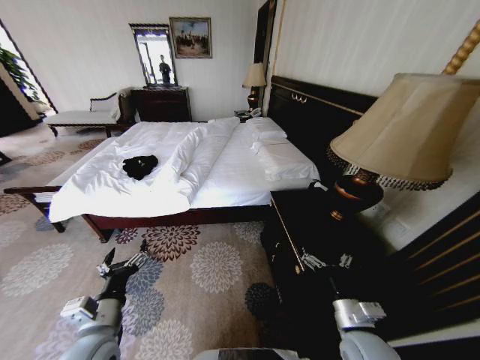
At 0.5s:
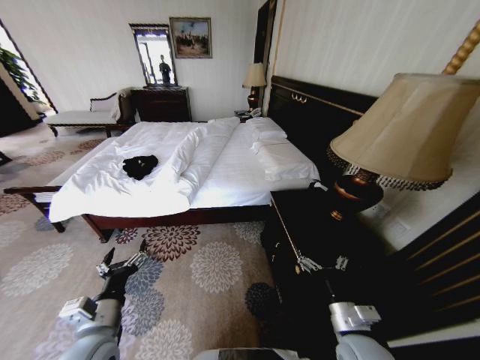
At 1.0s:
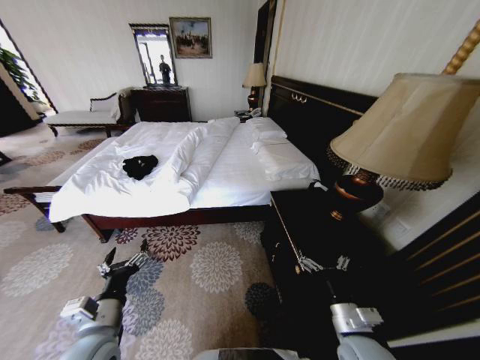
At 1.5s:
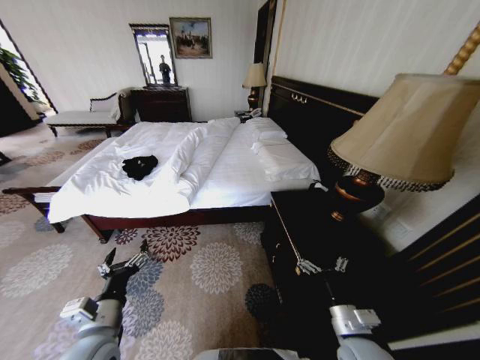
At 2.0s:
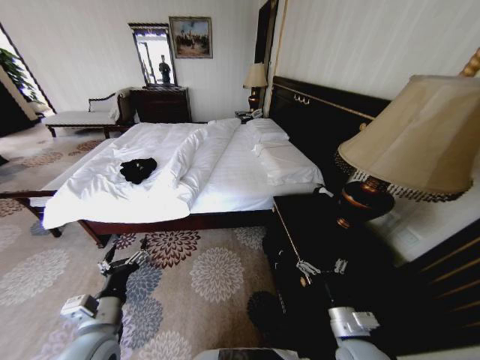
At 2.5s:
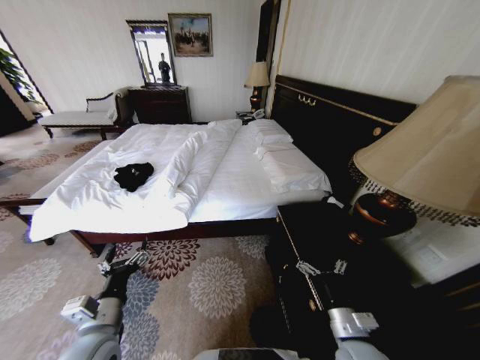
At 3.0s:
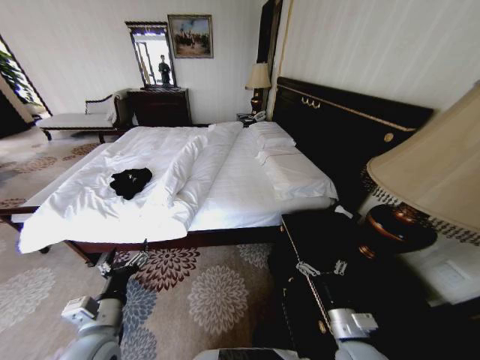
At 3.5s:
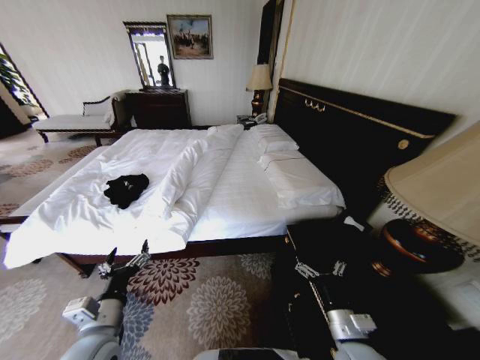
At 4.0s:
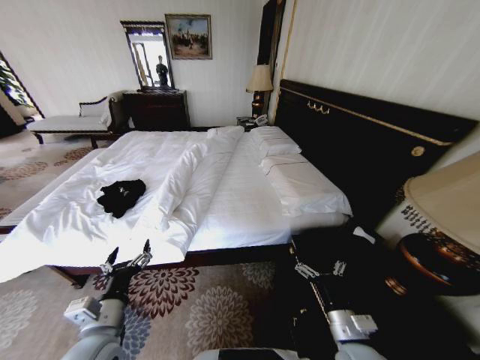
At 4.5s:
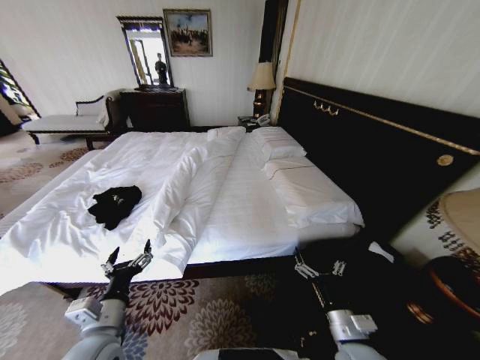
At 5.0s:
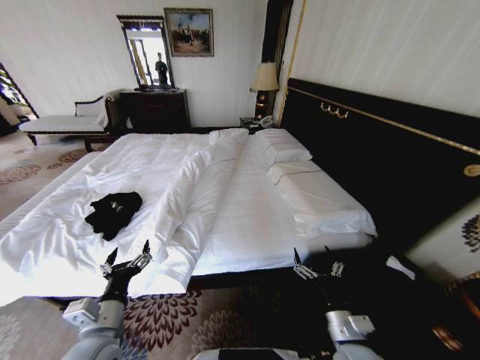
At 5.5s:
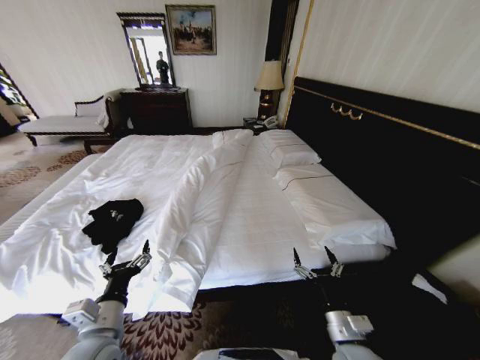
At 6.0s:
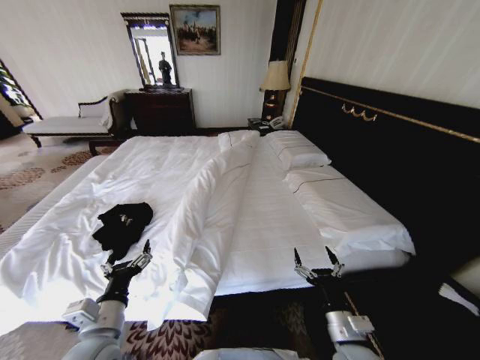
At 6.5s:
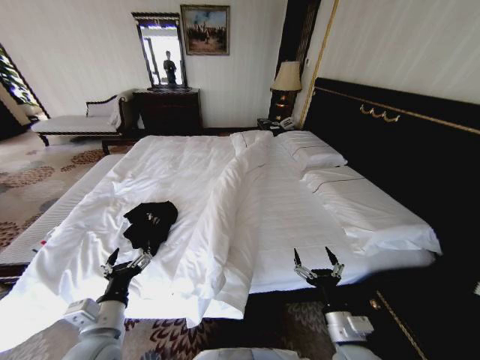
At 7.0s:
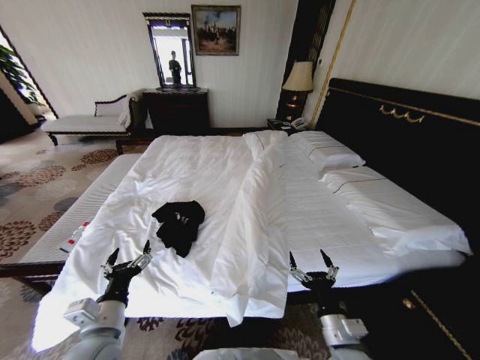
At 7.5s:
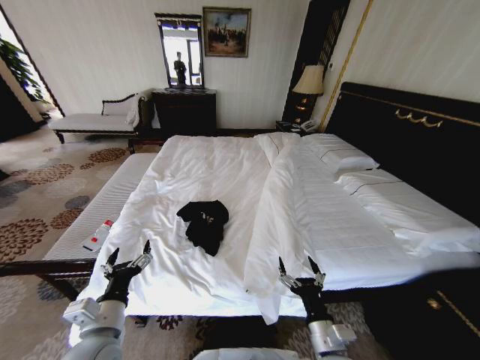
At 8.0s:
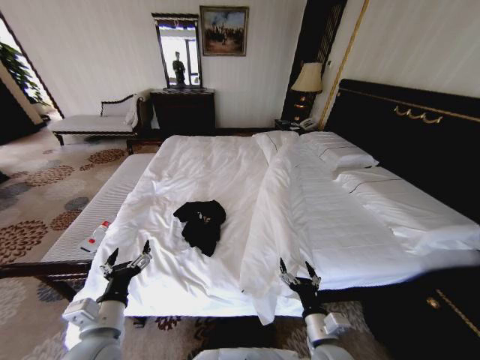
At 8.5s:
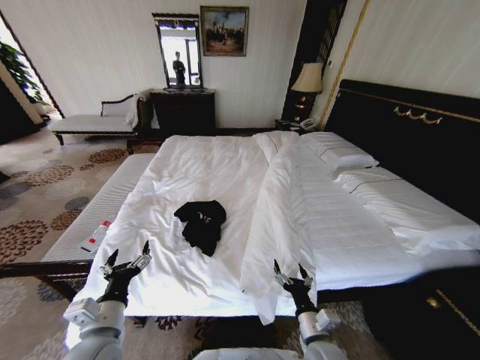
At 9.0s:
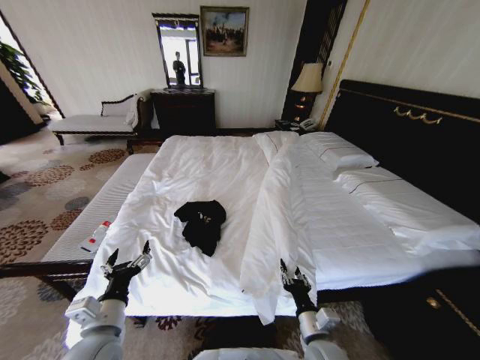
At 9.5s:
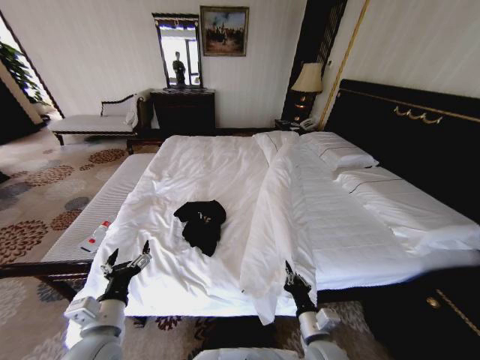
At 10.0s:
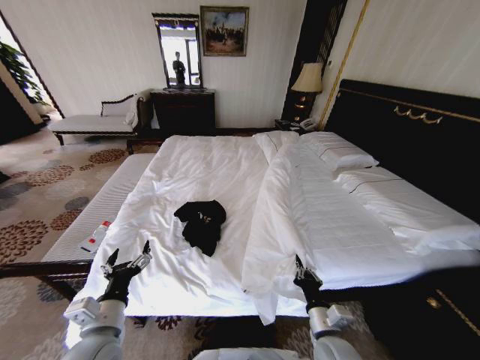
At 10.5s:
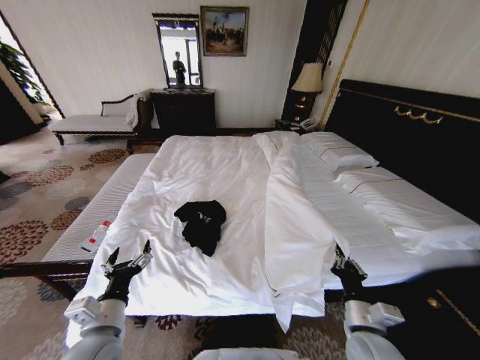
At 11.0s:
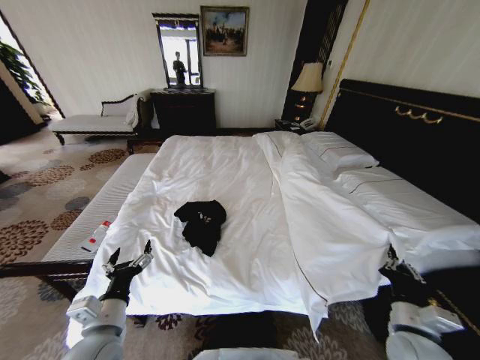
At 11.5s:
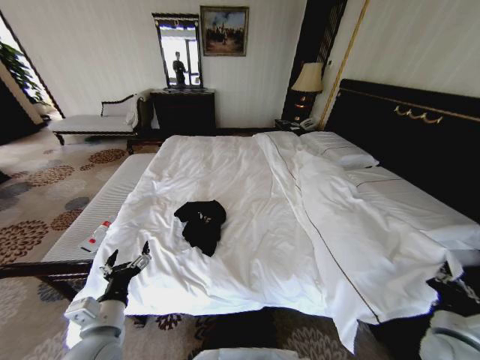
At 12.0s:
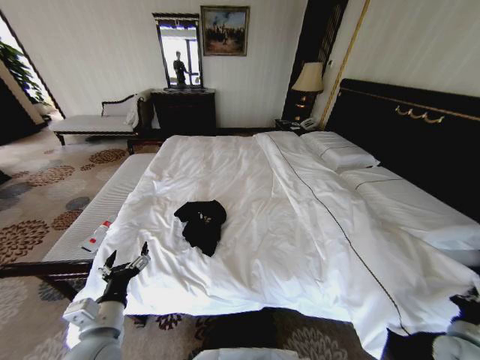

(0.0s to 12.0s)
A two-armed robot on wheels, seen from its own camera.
Task of the whole recording: Fold the clothes on the bed.
6.0s - 8.0s: The right gripper moves roughly 5 cm.
8.0s - 10.0s: The right gripper closes its fingers.
10.0s - 12.0s: The right gripper goes approximately 35 cm to the right.

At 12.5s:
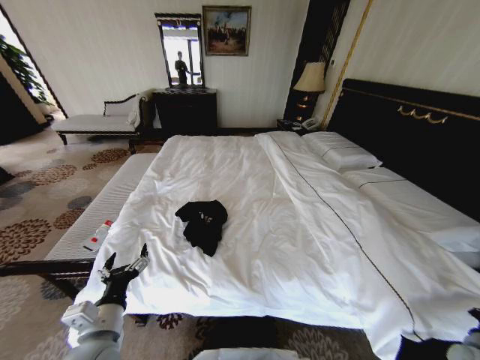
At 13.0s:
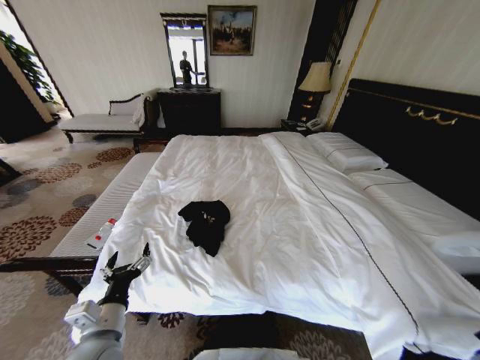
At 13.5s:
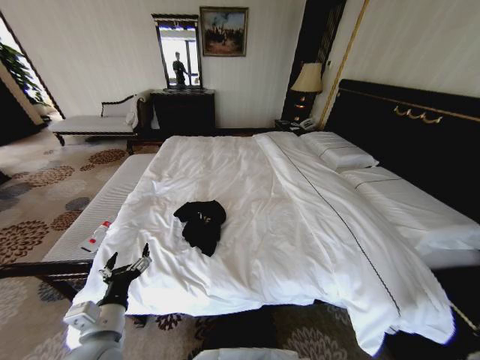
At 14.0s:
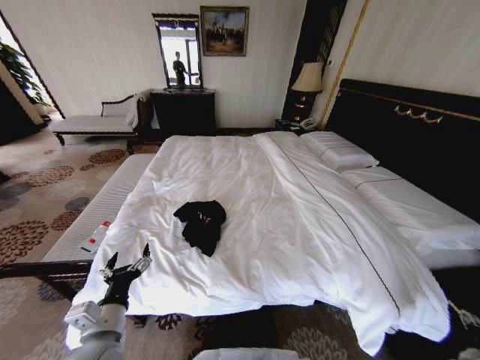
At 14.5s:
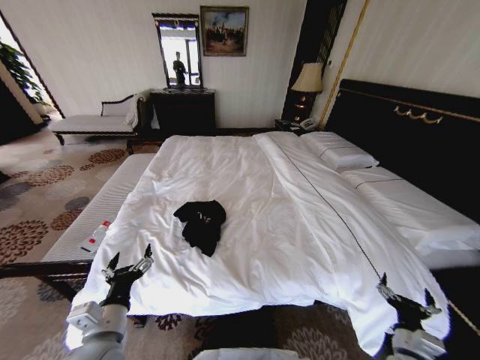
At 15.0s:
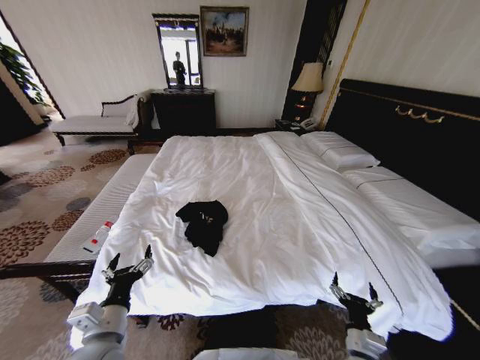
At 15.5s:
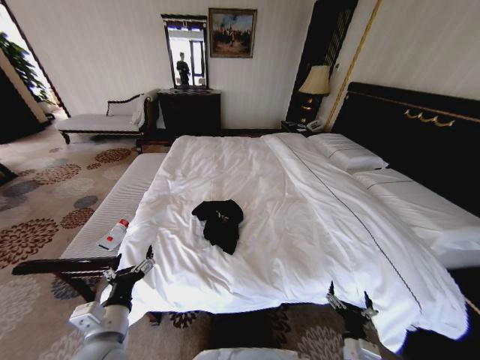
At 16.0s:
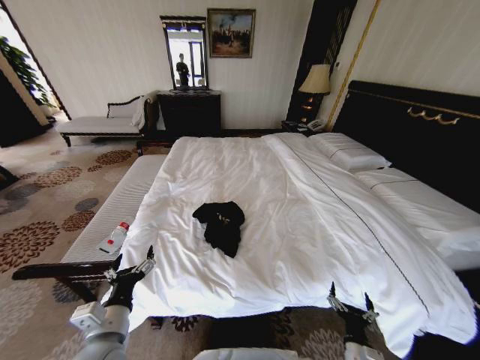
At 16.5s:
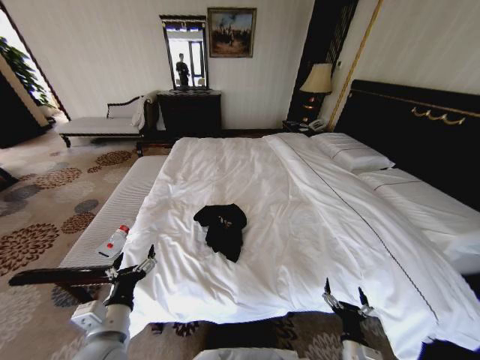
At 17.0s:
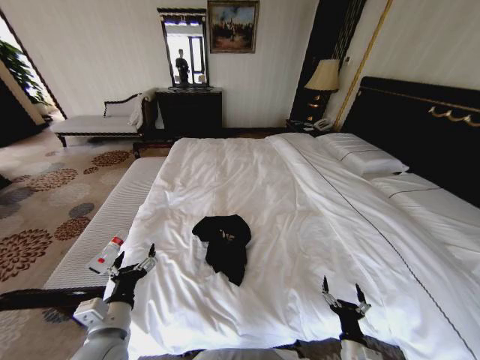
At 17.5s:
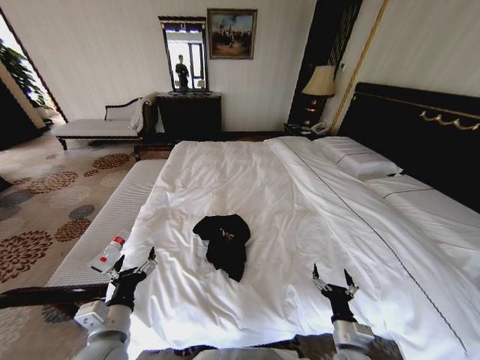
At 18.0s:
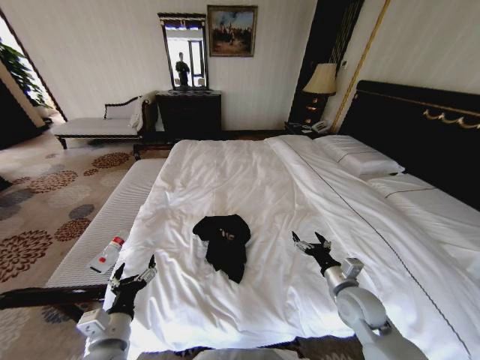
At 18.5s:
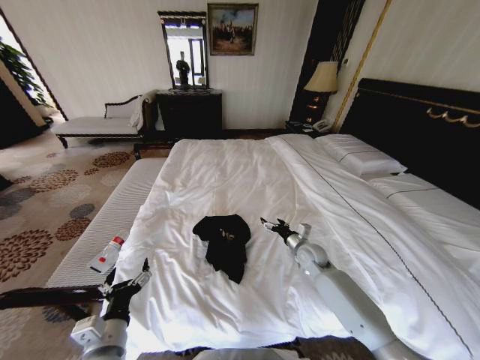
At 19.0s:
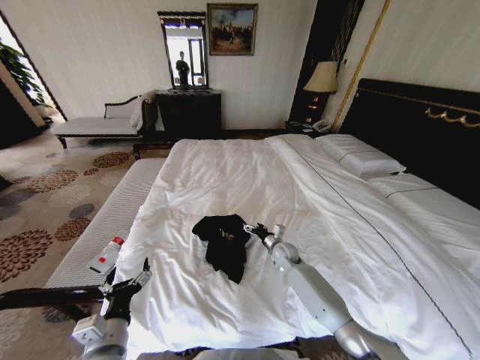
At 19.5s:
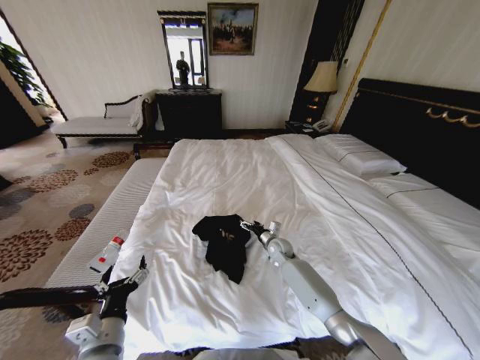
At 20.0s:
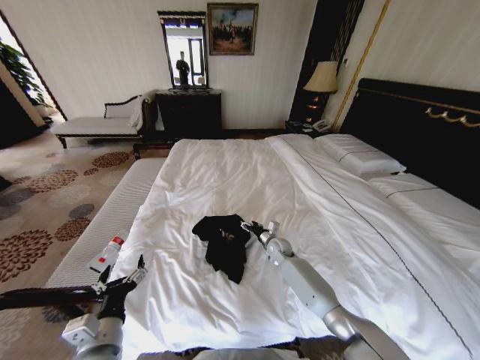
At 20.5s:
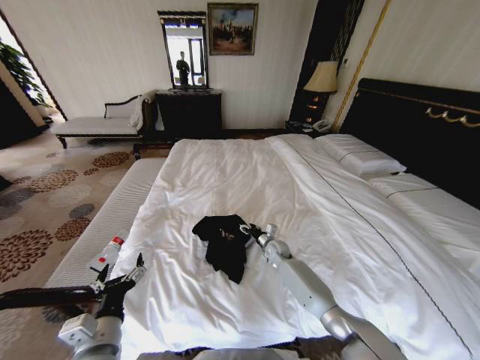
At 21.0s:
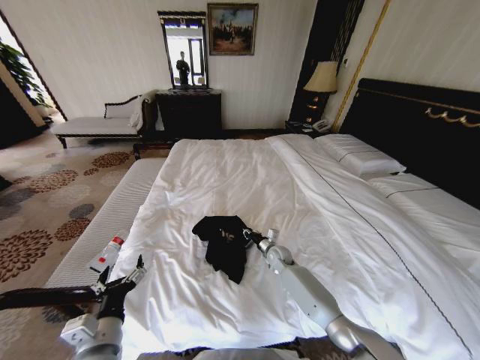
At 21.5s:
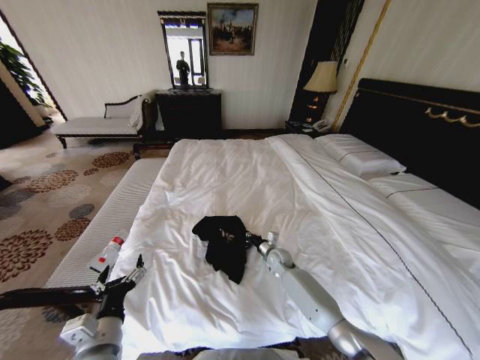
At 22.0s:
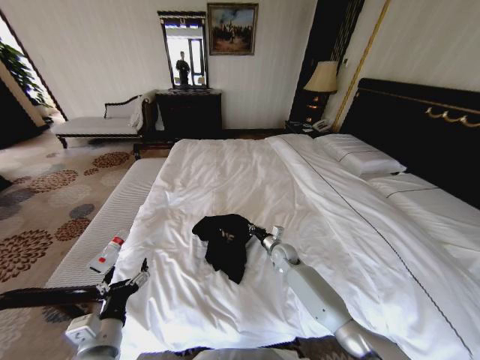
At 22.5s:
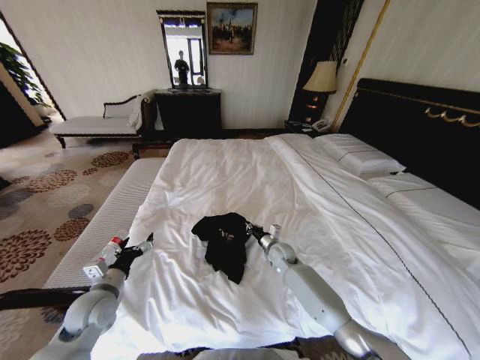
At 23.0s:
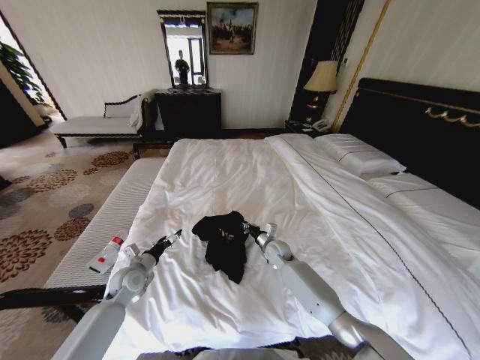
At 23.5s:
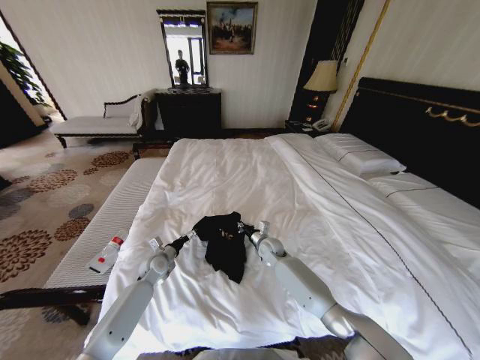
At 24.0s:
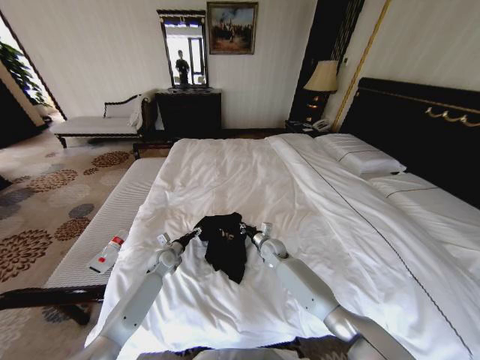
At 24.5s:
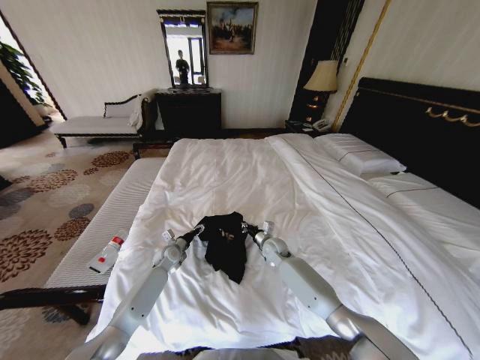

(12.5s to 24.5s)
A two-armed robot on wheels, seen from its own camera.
Task of the whole recording: Fold the clothes on the bed.
12.5s - 14.5s: The right gripper goes some 20 cm to the left, and opens up.
14.5s - 16.5s: The right gripper is displaced to the left by some 10 cm.
16.5s - 18.5s: The right gripper goes roughly 30 cm forward.
18.5s - 20.5s: The right gripper shifts some 15 cm to the left, downward and forward.
20.5s - 22.5s: The right gripper closes its fingers; the left gripper goes approximately 15 cm forward and to the left.
22.5s - 24.5s: The left gripper goes about 25 cm forward, downward and to the right.

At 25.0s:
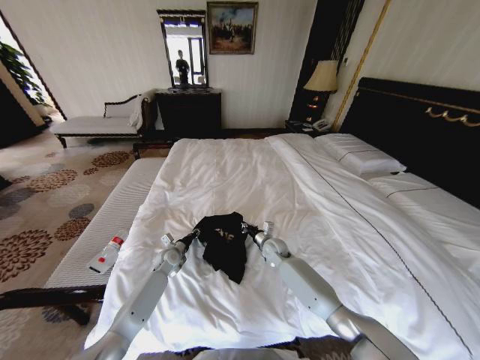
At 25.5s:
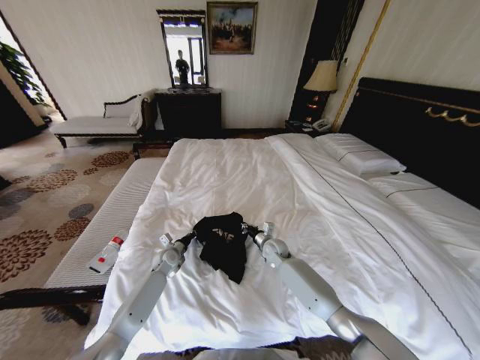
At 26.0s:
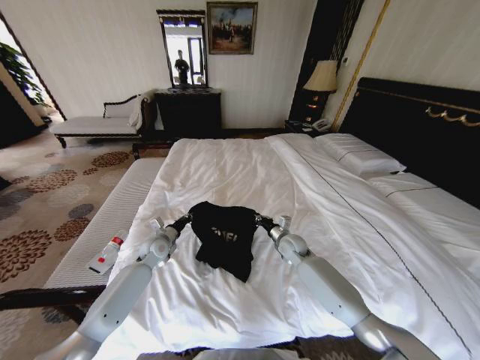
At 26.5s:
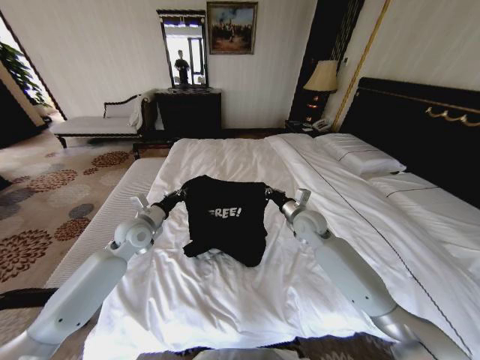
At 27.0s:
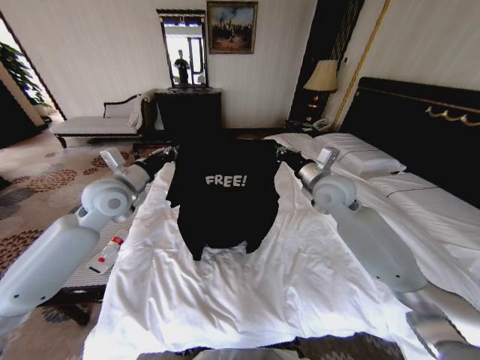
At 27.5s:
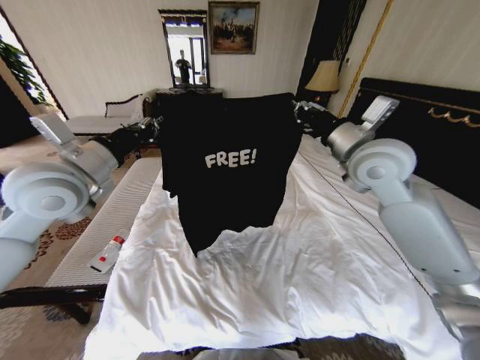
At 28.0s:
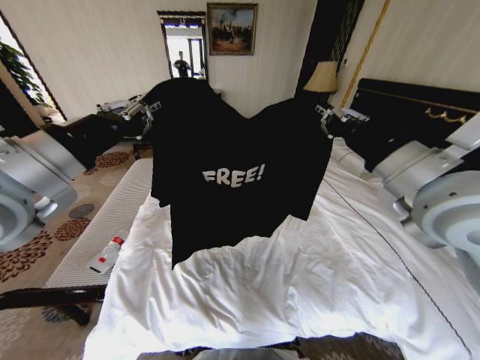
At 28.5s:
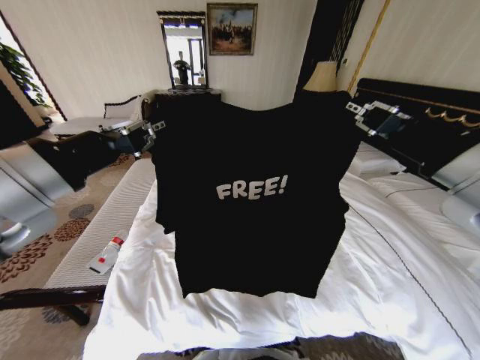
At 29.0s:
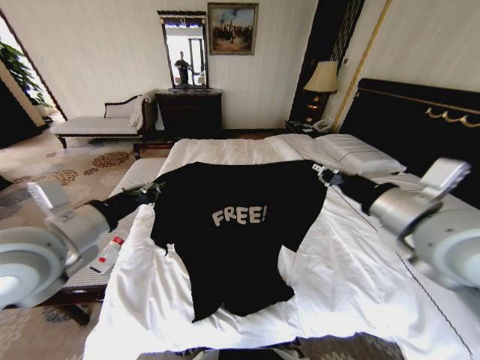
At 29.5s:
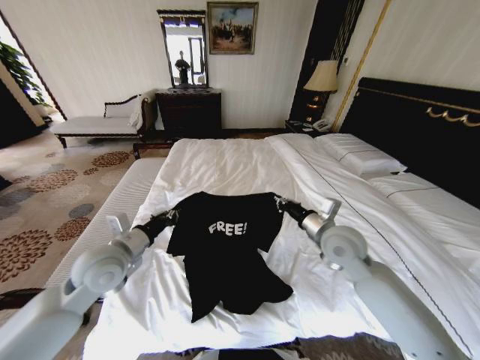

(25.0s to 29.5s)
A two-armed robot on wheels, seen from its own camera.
Task of the whole recording: Fold the clothes on the bed.
25.0s - 27.0s: The two grippers go some 35 cm upward. The left gripper closes its fingers.
27.0s - 29.5s: Both grippers move backward and downward, roughly 15 cm.
